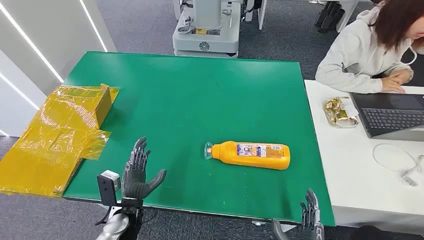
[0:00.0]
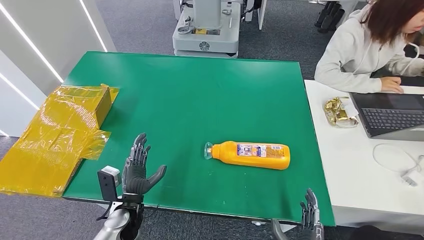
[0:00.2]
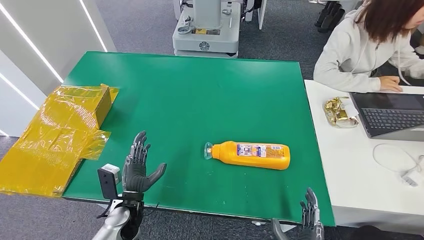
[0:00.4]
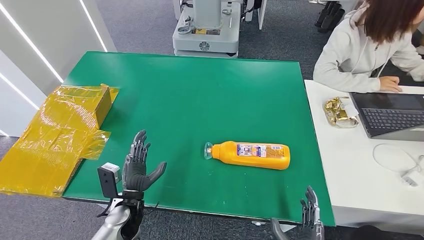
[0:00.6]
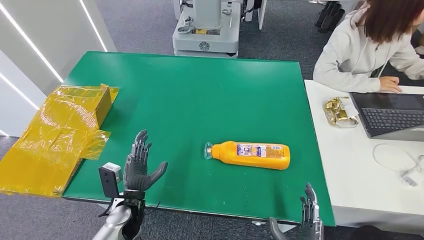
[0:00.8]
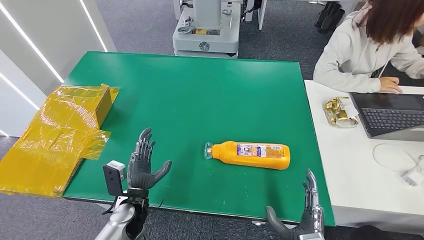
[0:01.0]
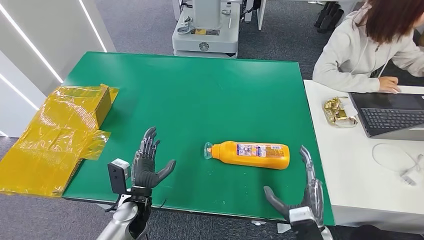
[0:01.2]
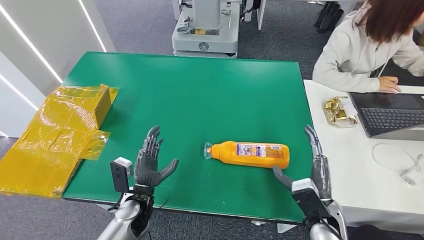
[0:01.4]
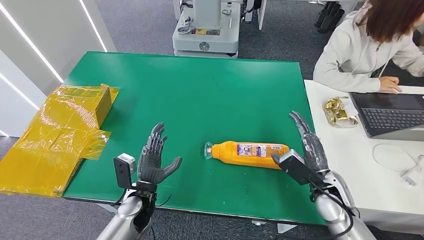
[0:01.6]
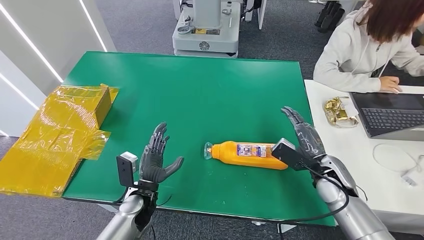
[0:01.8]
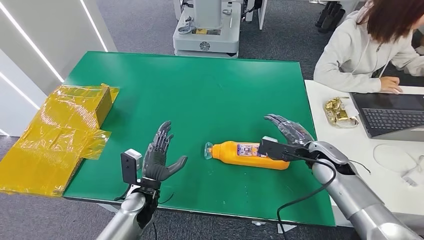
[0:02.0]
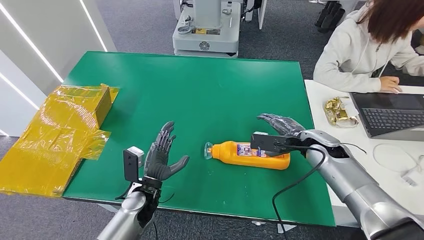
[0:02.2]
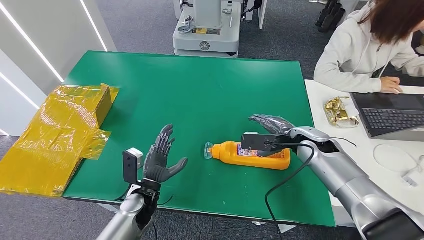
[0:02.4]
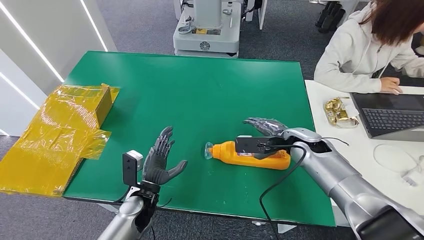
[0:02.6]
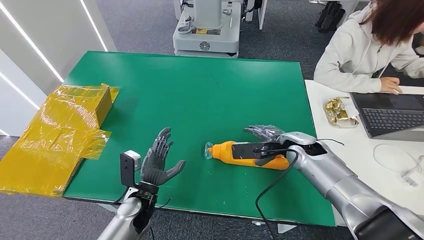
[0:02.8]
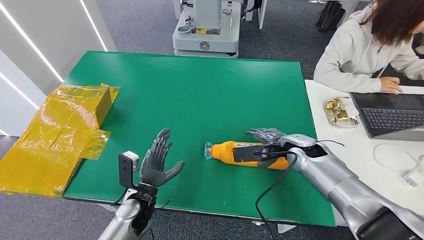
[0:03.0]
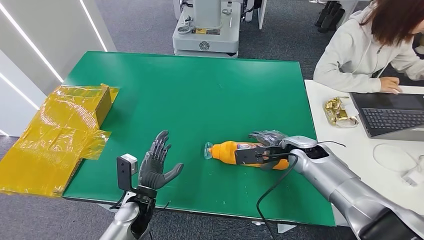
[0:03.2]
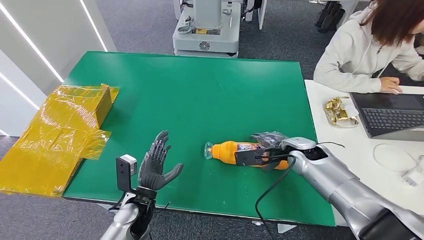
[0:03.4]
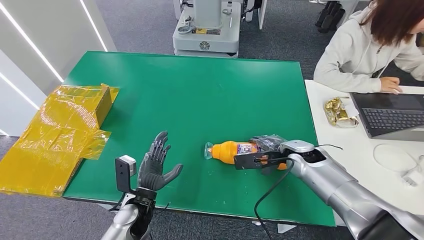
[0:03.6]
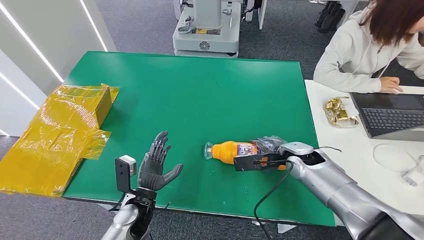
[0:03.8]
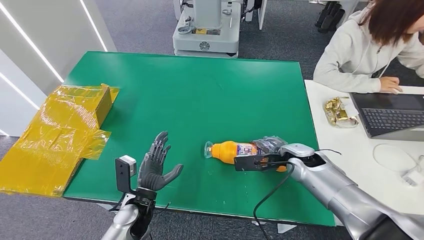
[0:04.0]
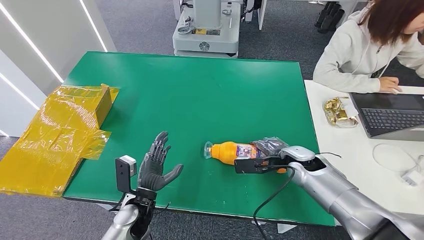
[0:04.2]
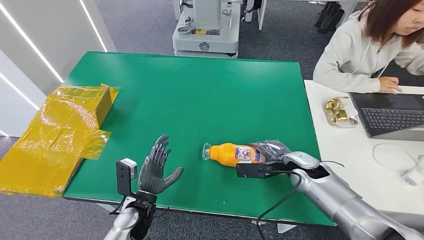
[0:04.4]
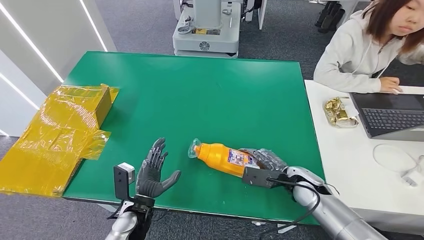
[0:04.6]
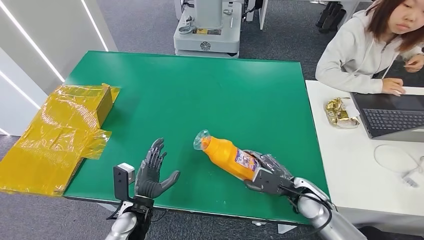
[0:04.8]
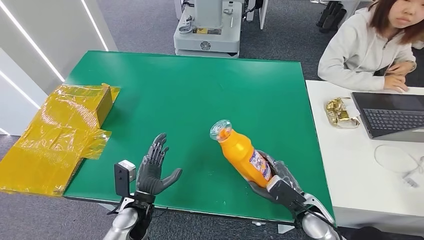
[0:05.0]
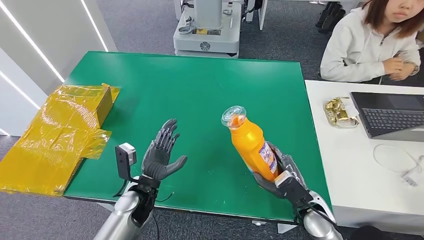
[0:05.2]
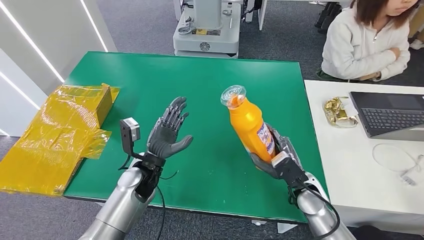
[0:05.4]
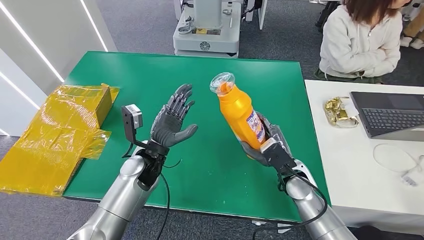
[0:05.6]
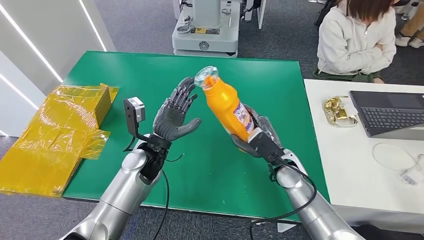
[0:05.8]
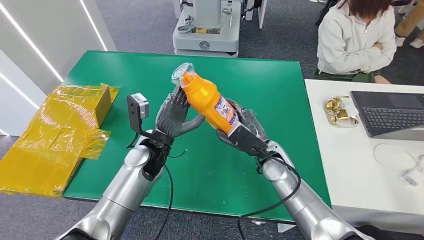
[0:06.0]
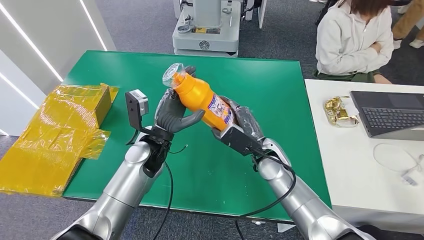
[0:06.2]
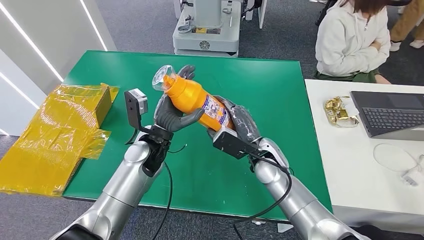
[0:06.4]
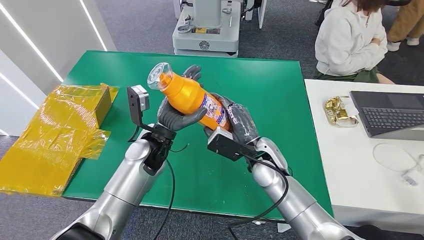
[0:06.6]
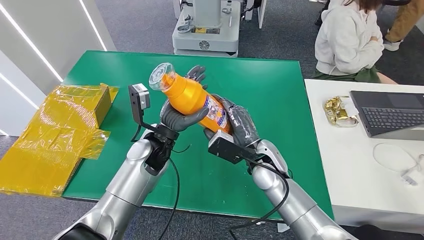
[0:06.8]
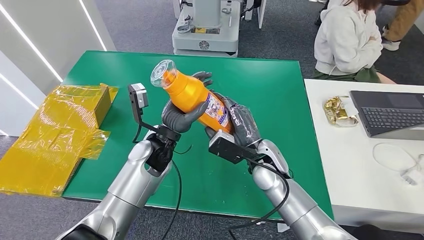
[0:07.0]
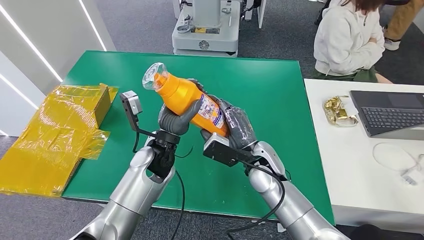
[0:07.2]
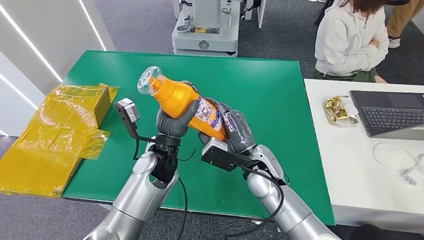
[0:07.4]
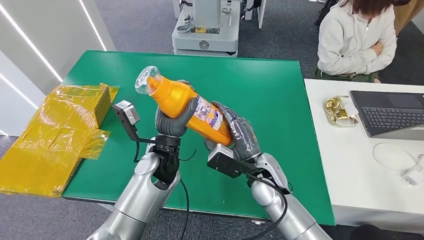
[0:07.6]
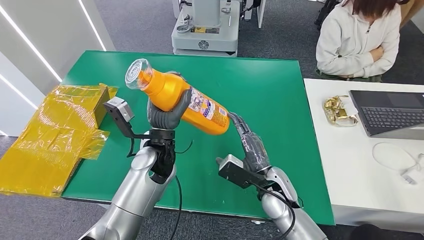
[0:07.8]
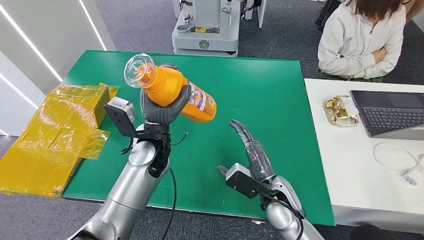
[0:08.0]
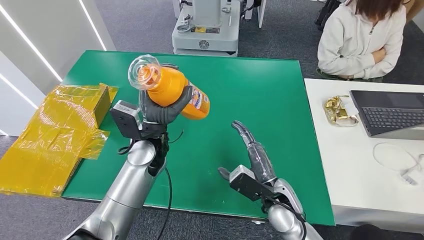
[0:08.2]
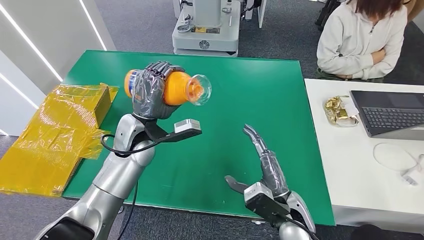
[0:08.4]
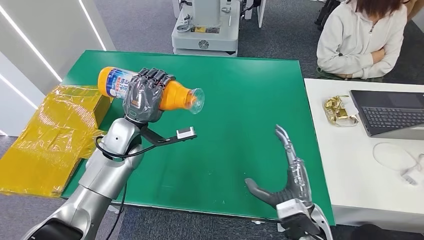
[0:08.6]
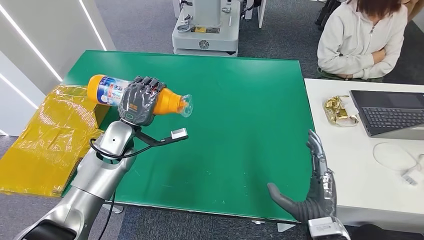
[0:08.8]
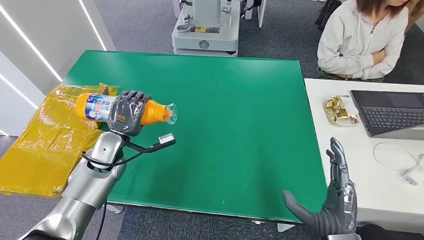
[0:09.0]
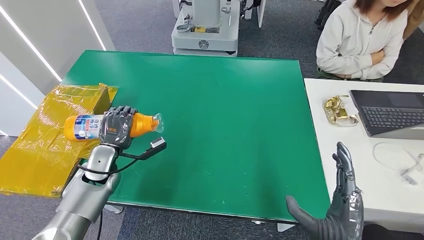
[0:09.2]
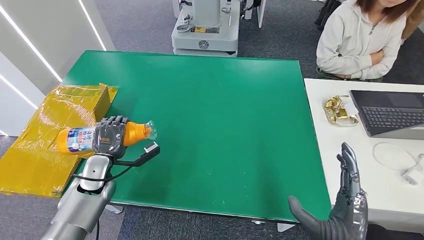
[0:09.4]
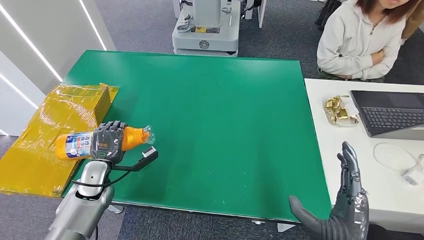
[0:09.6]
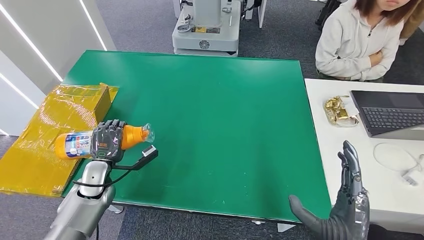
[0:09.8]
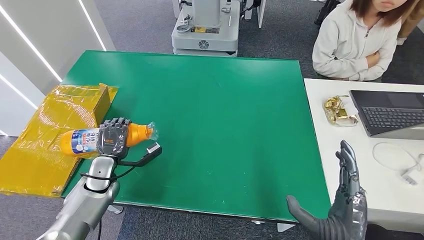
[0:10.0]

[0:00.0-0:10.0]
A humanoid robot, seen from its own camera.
Step, 0:00.0 to 0:05.4: Pick up the bottle from the table.
0:01.4 to 0:02.8: The right hand moves forward and upward, about 20 cm.
0:02.8 to 0:04.2: There are only small adjustments of the hands.
0:05.8 to 0:07.2: The right hand heads to the left, covering some 5 cm.
0:08.6 to 0:10.0: The left hand is displaced downward and to the left by some 15 cm; the right hand is displaced backward by some 5 cm.

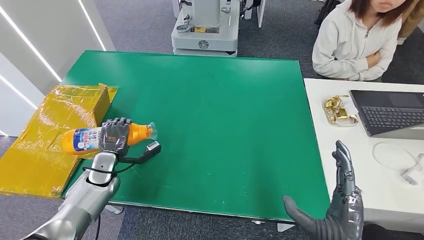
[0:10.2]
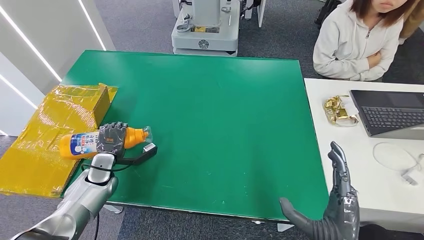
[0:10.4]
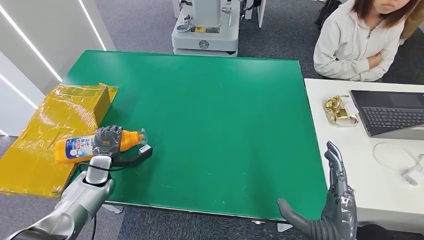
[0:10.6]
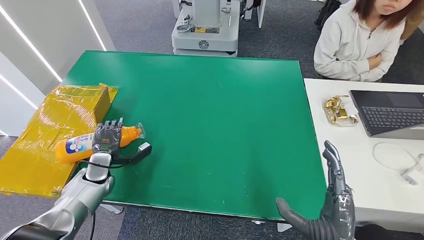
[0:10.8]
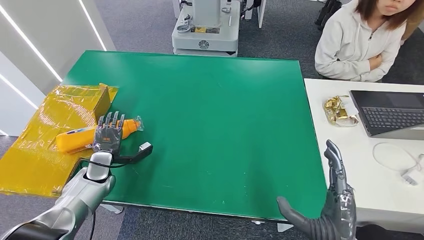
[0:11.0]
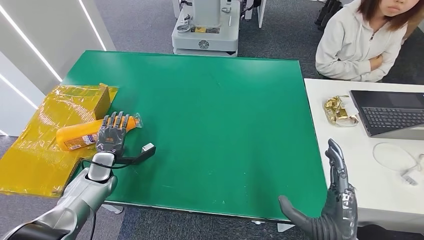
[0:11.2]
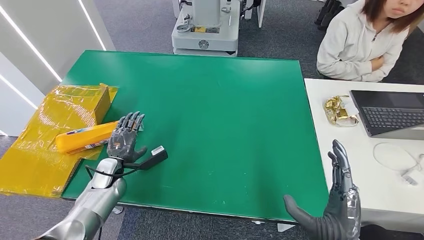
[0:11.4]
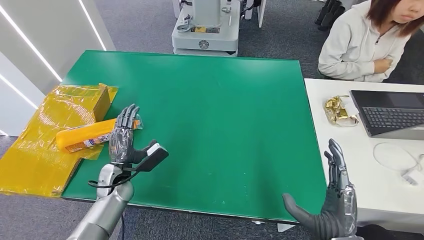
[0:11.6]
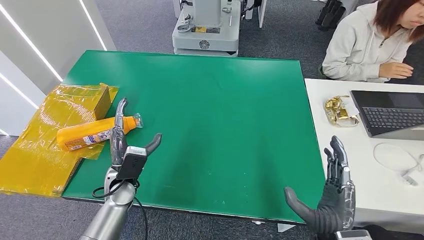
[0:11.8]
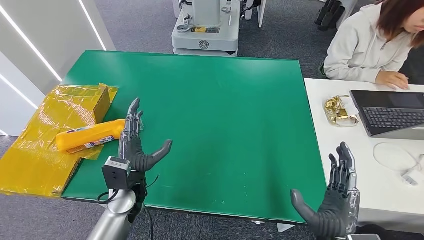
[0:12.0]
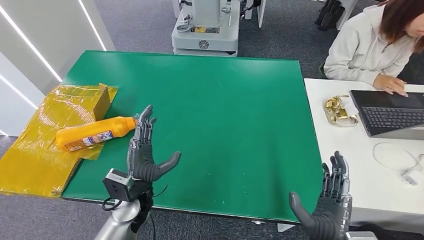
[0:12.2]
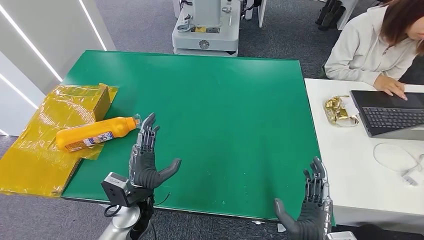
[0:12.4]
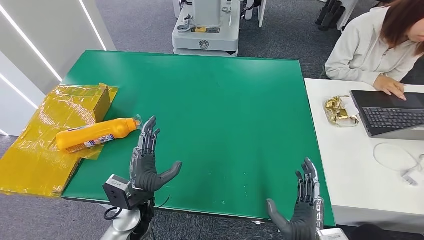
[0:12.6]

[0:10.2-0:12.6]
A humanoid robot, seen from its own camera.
Step, 0:10.2 to 0:12.6: Turn the bottle to the front side.
0:11.4 to 0:12.6: The left hand is displaced to the right and backward by roughly 20 cm; the right hand heads downward, covering roughly 5 cm.
